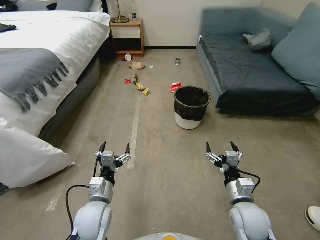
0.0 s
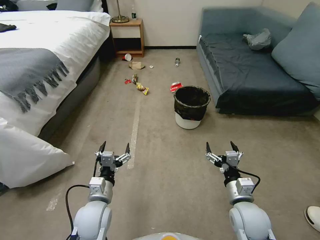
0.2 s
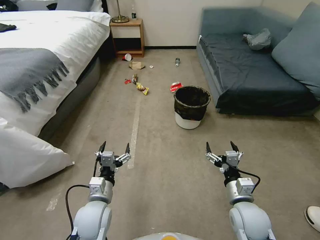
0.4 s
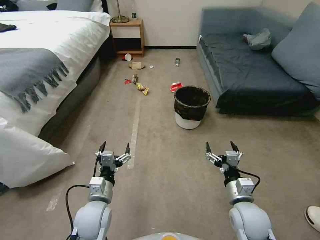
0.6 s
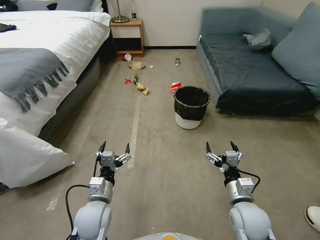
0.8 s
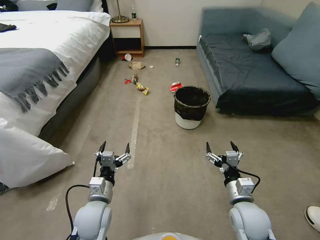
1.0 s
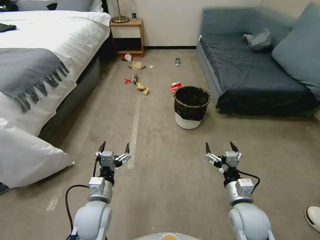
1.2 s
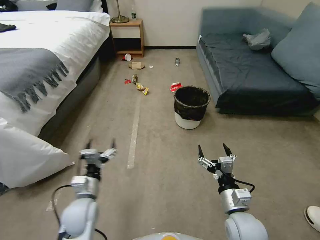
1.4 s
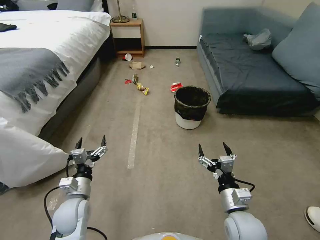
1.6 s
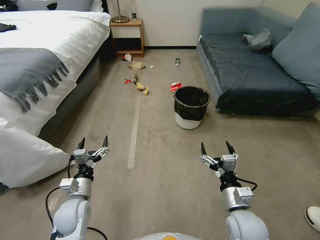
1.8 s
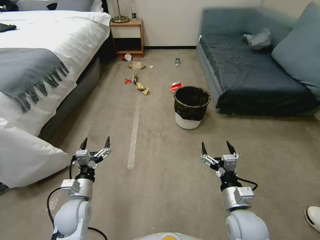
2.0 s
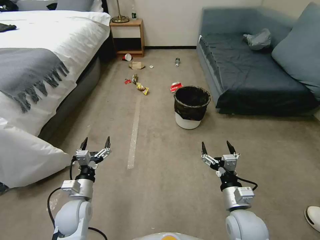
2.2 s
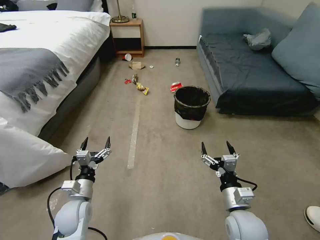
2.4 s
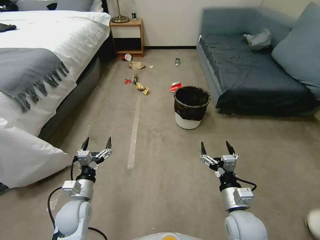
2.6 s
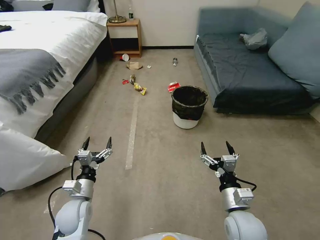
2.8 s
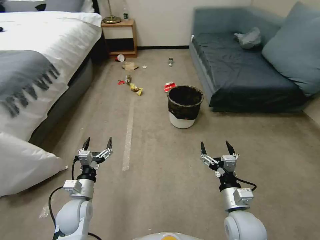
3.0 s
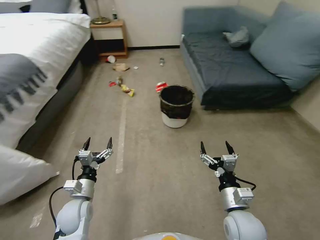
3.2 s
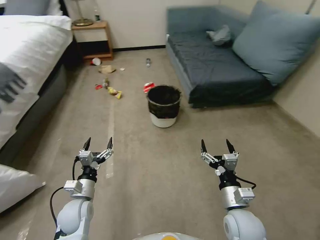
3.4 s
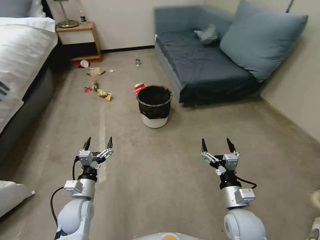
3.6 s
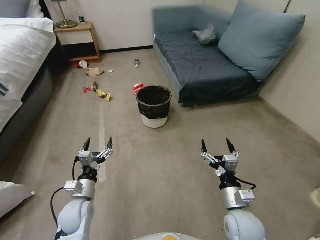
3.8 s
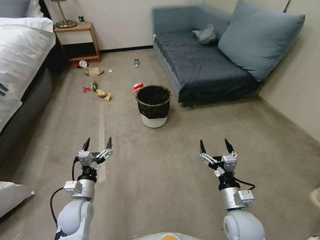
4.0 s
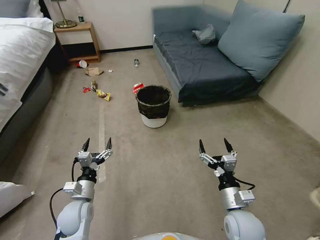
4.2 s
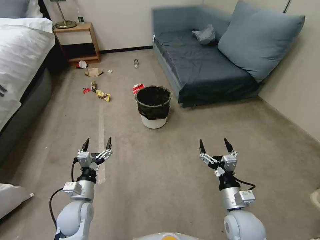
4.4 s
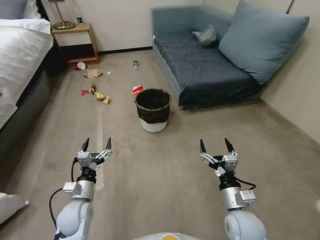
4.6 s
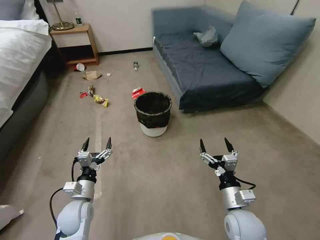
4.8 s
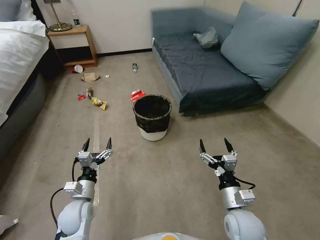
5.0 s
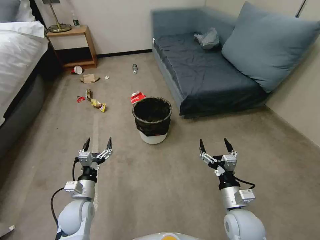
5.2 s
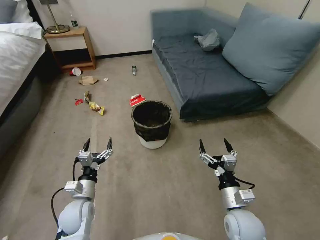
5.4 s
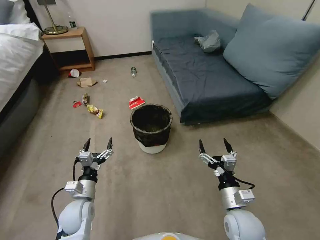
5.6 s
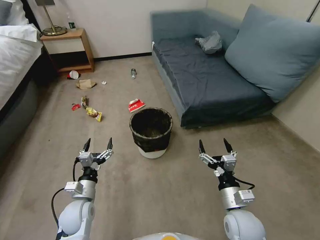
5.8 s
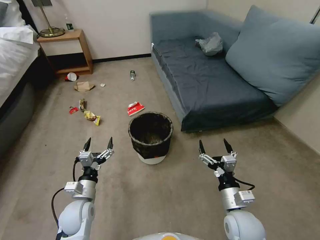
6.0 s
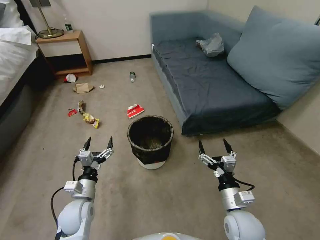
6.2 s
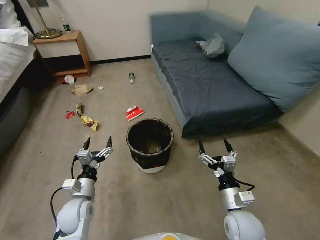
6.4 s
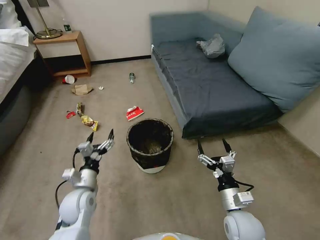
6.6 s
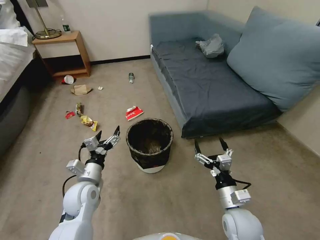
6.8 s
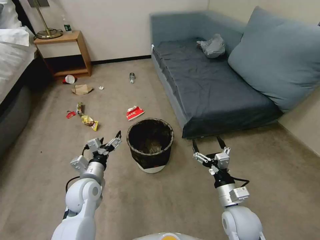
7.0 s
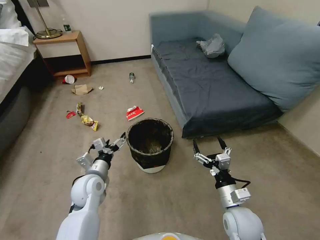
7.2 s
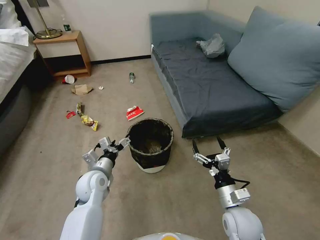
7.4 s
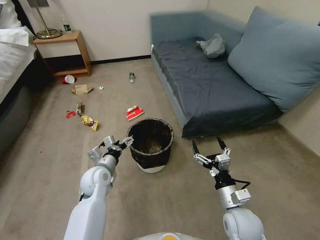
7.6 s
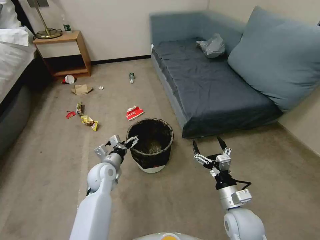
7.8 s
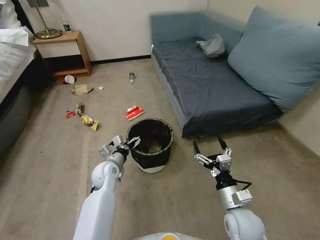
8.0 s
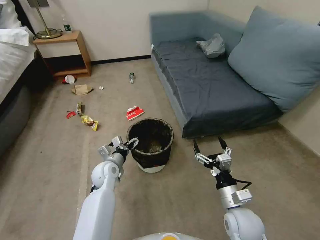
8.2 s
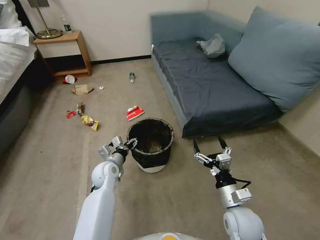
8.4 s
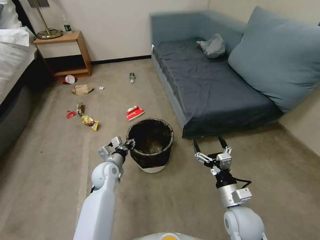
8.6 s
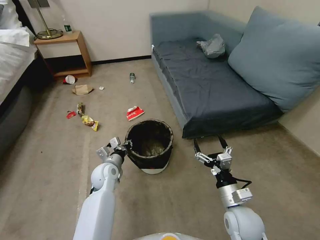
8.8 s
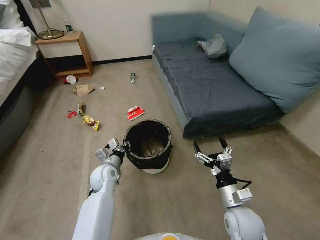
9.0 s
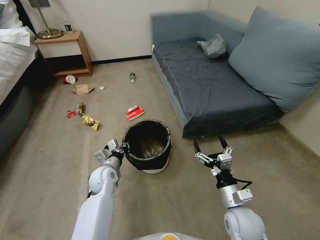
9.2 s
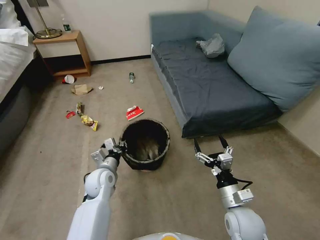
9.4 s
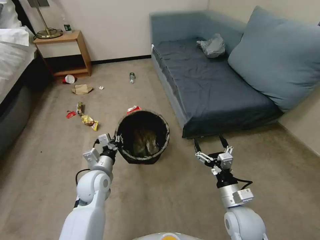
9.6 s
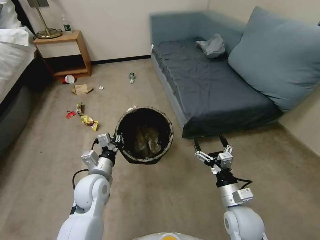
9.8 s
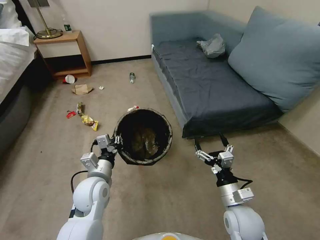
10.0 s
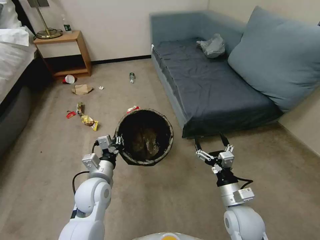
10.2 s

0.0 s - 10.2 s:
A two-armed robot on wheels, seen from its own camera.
Task of the whole recording: Pick up the trash can from the floor.
1.4 s - 3.0 s: The left gripper ends up approximately 5 cm from where it was.
5.8 s - 7.2 s: The left gripper shifts approximately 10 cm upward and forward.
7.2 s - 8.8 s: The left gripper travels forward and downward by about 10 cm, and closes its fingers.
8.8 s - 10.2 s: The left gripper heads backward and upward, covering some 10 cm.

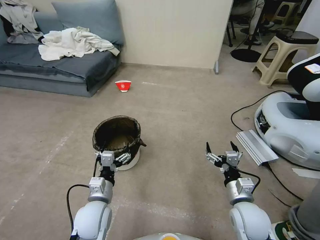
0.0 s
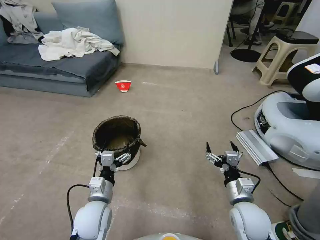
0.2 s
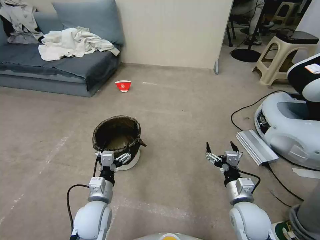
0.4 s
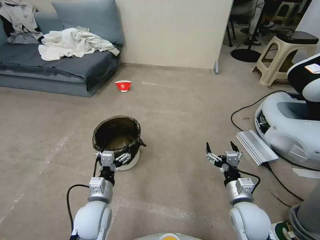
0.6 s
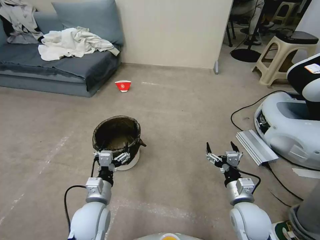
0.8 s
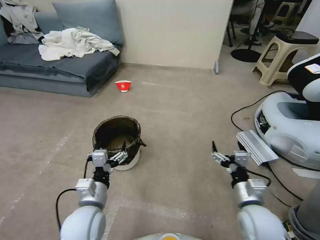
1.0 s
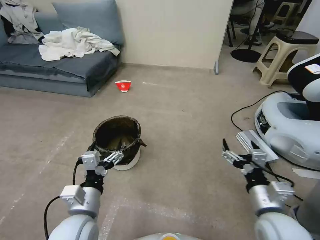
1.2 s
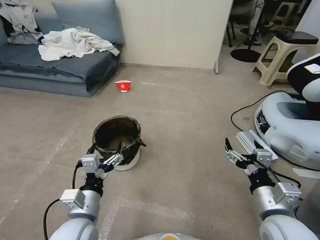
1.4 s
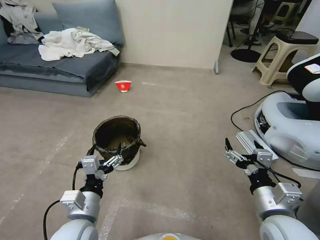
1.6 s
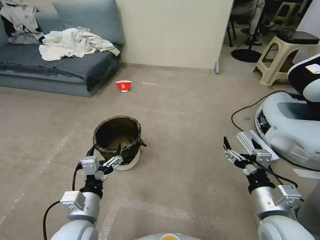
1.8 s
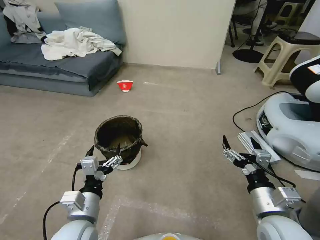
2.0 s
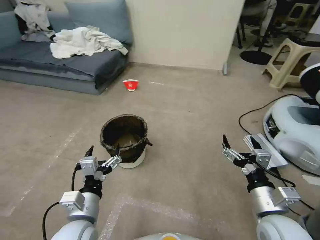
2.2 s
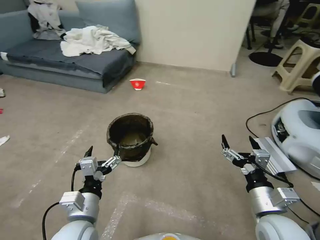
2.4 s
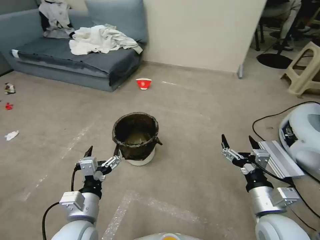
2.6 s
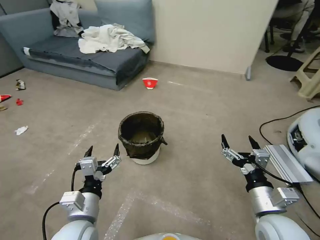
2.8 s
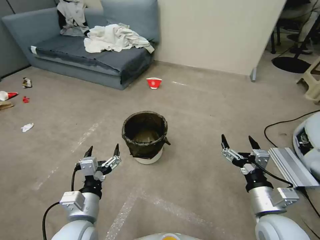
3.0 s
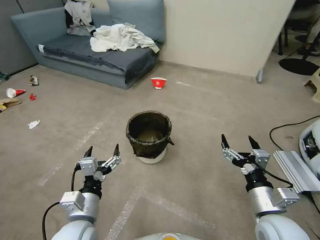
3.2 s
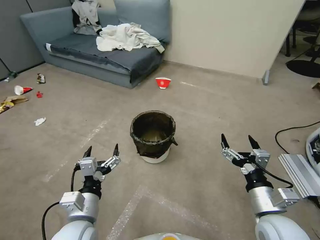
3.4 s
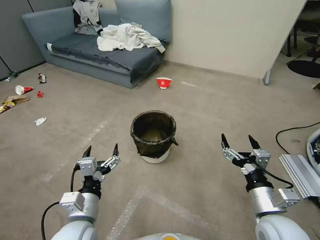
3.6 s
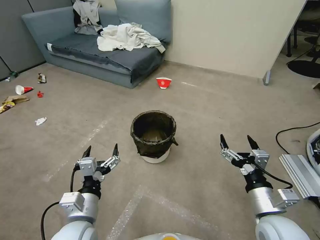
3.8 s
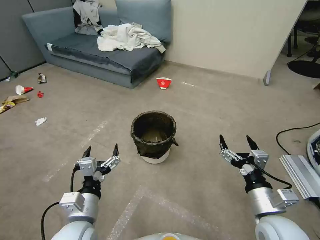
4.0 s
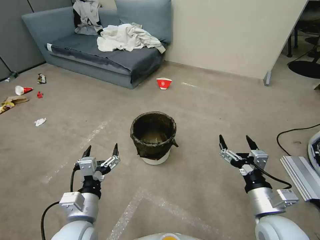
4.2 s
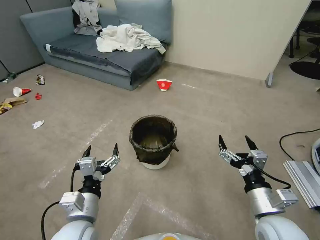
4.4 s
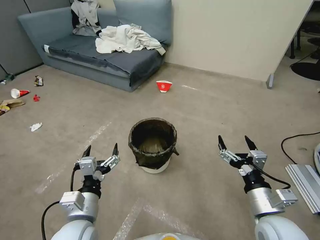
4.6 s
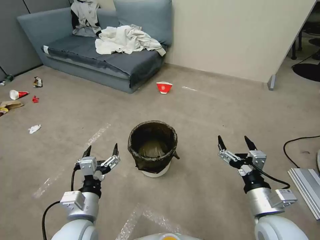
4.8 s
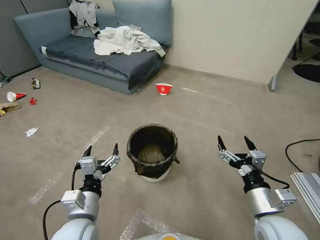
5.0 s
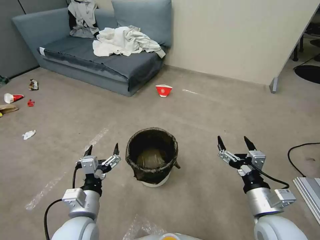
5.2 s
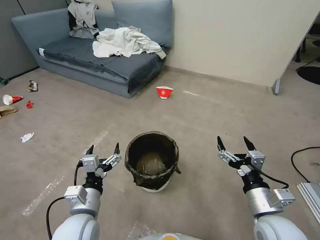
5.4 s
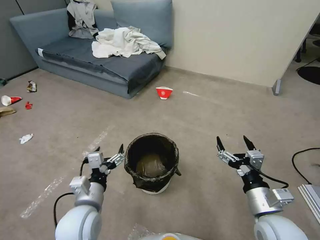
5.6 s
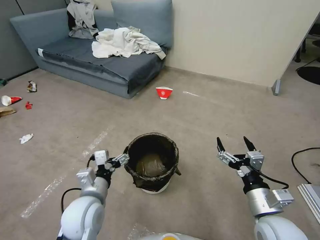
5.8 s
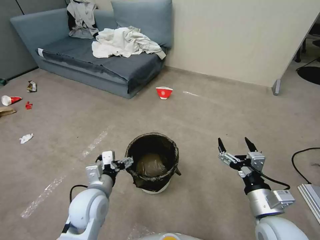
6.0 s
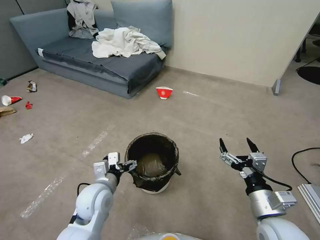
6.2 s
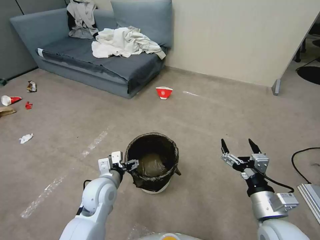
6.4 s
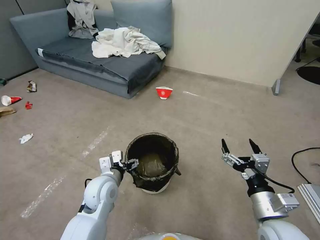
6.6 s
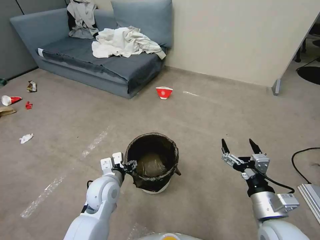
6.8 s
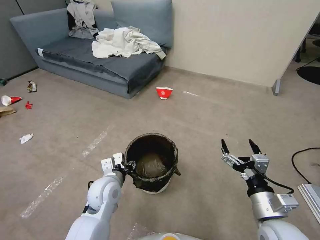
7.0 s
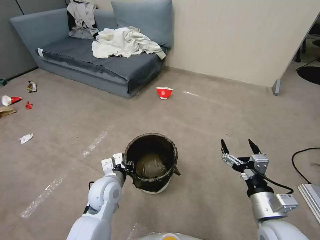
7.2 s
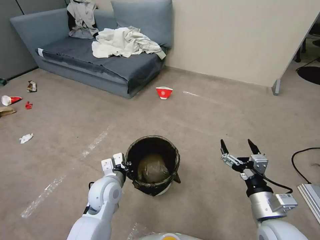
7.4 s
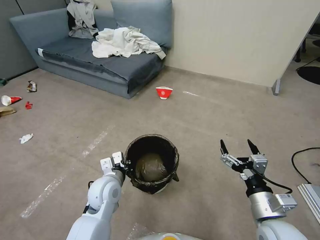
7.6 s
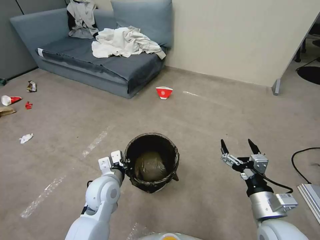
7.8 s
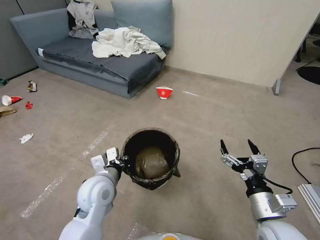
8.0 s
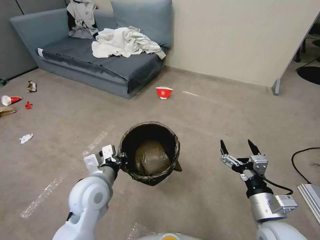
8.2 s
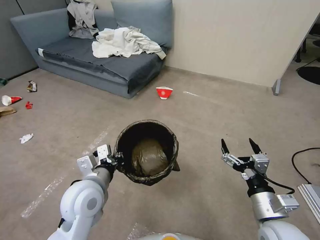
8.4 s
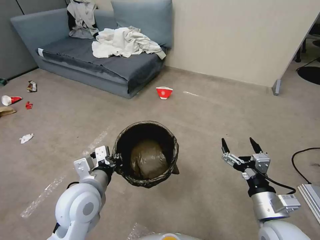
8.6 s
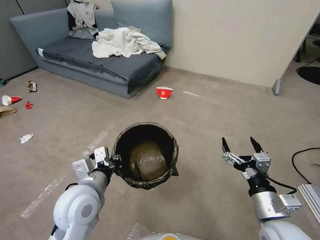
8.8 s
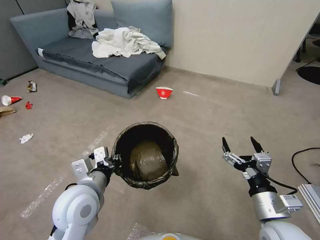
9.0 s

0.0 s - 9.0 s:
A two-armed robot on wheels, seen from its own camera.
Task of the whole recording: Pick up the trash can from the floor.
4.4 s - 6.0 s: The left gripper moves forward, about 10 cm.
6.0 s - 7.6 s: The left gripper changes place by about 5 cm, and closes its fingers.
7.6 s - 9.0 s: The left gripper shifts about 10 cm upward and backward.
